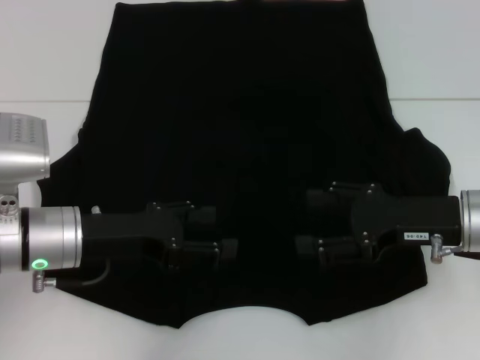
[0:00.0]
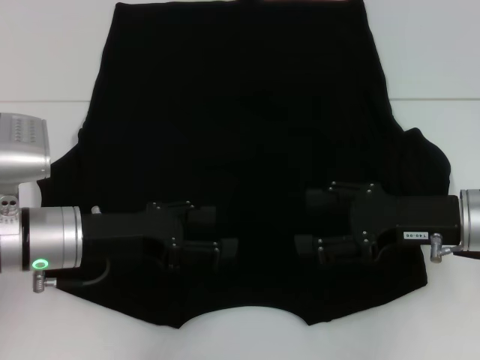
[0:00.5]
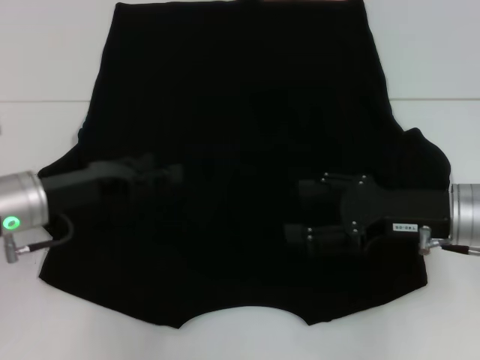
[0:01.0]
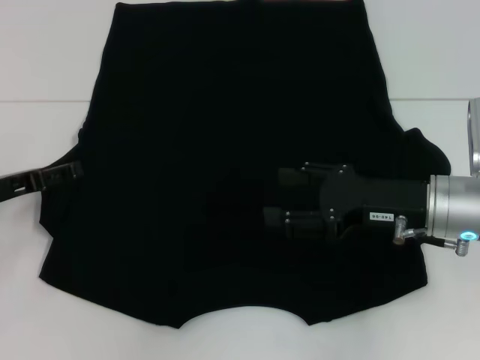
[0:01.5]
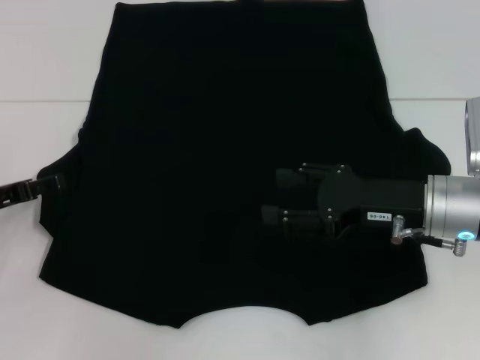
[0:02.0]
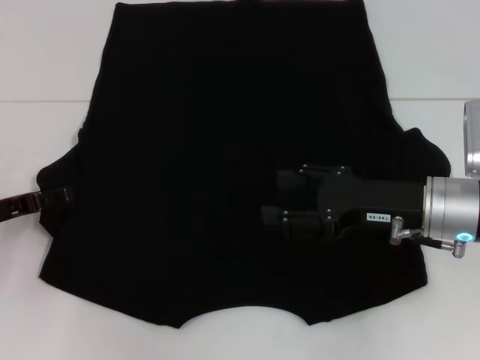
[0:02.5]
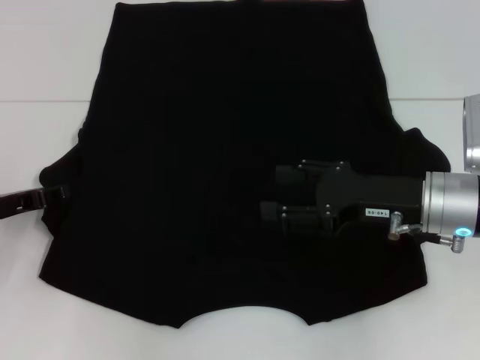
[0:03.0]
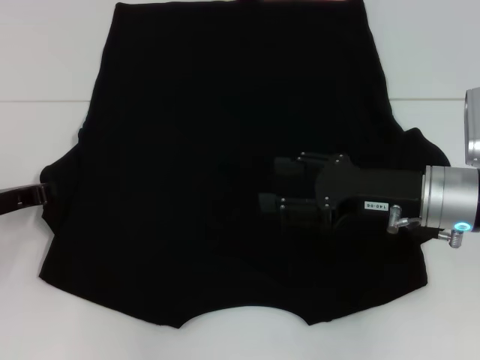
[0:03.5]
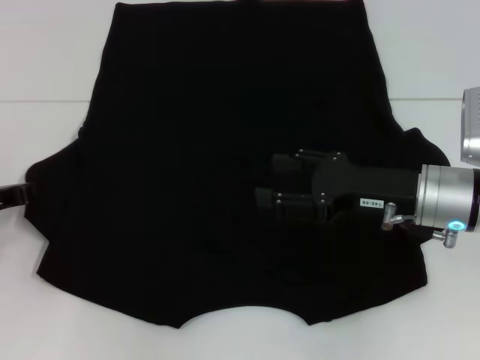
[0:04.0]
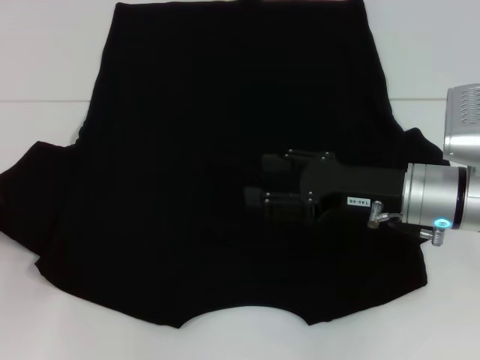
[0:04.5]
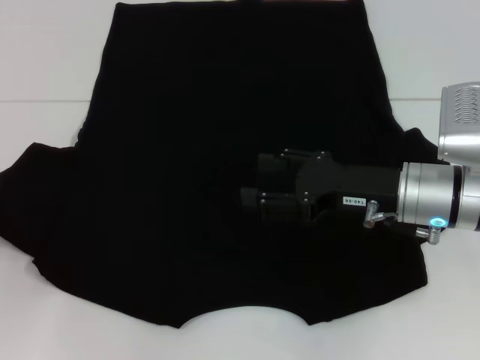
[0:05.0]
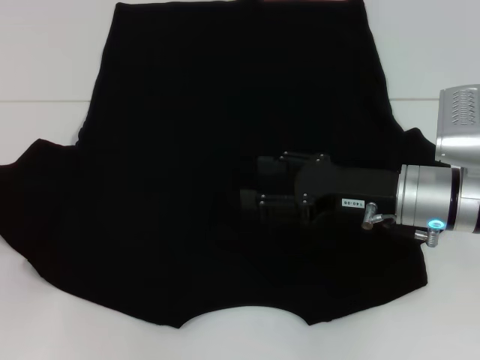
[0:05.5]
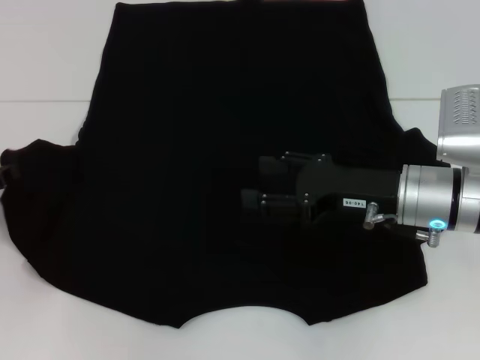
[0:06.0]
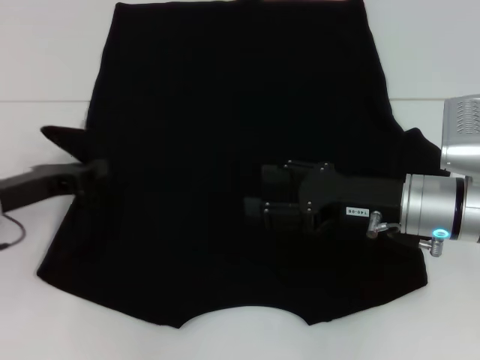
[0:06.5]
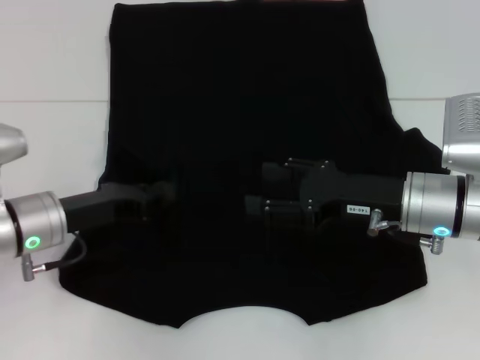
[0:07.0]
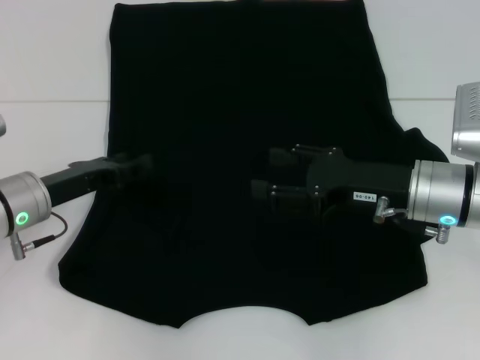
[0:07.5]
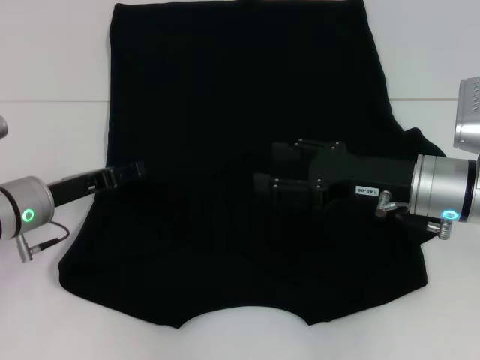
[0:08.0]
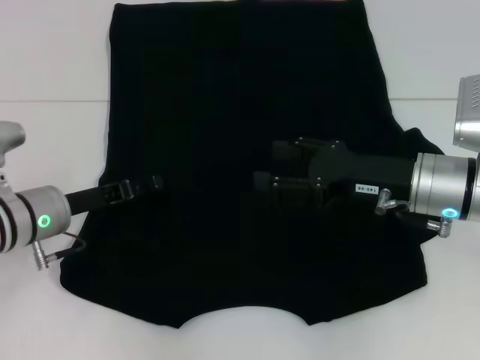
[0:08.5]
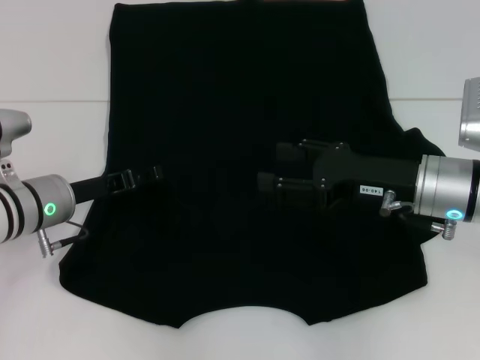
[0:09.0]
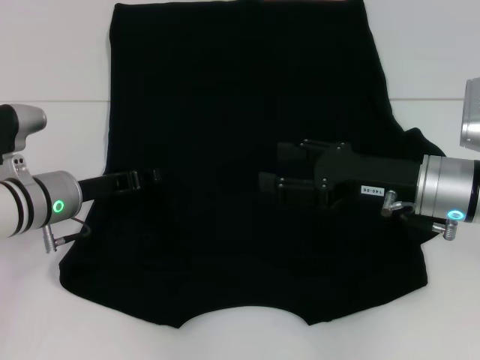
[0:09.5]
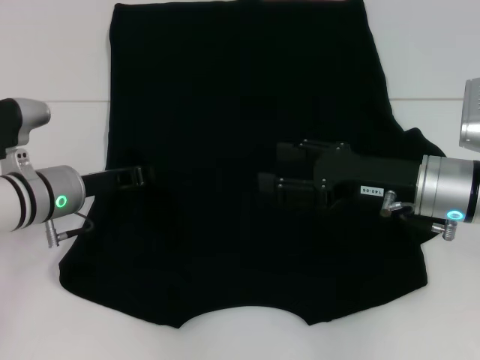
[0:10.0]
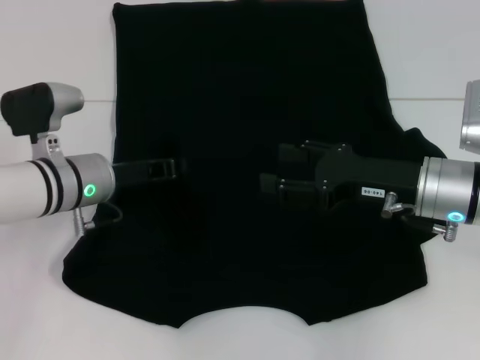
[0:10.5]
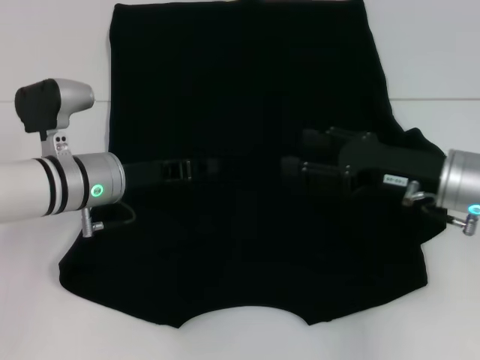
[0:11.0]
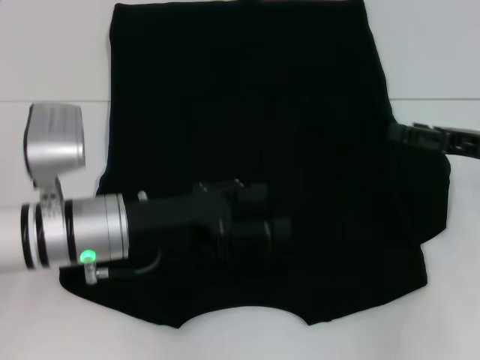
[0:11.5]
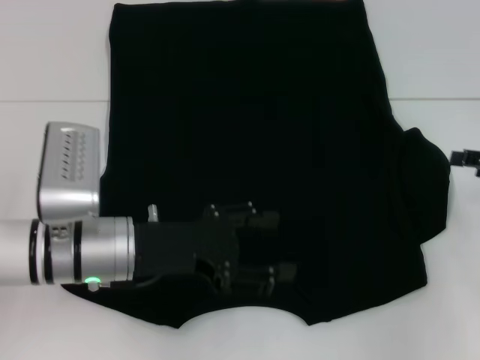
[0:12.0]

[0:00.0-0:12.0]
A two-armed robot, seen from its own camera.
Step, 0:00.0 to 0:09.0: Fold the bottom left sleeve with your left hand.
0:00.0 to 0:02.0: The left gripper goes some 10 cm to the left.
0:02.0 to 0:04.0: The left gripper closes its fingers.
0:04.0 to 0:06.0: The grippers move only a little.
0:06.0 to 0:08.0: The left gripper heads to the right, covering roughly 10 cm, and opens up.
0:08.0 to 0:10.0: The left gripper closes up.
0:10.0 to 0:12.0: The right gripper moves to the right, some 15 cm. Meanwhile the left gripper moves backward and to the right, some 10 cm, and opens.

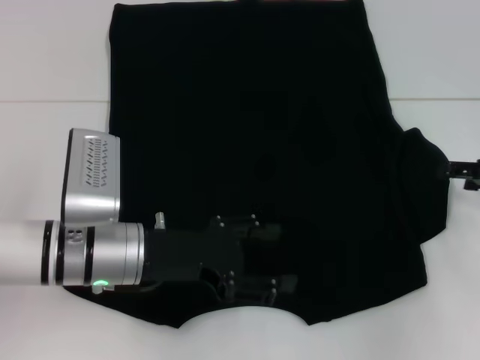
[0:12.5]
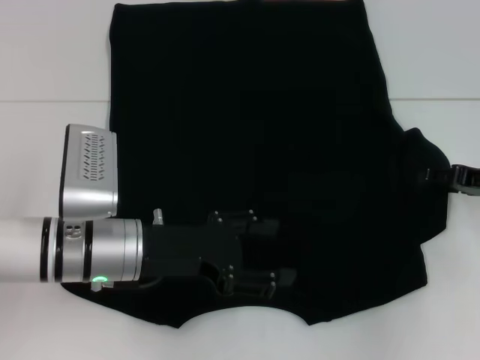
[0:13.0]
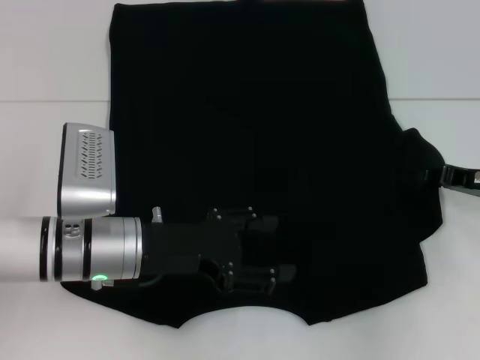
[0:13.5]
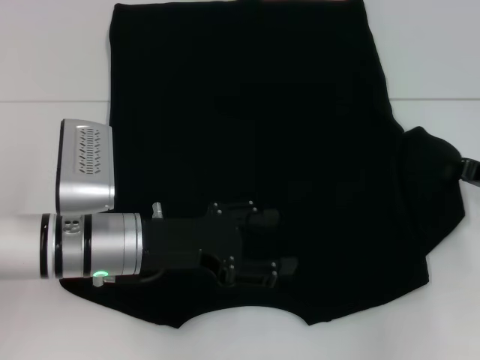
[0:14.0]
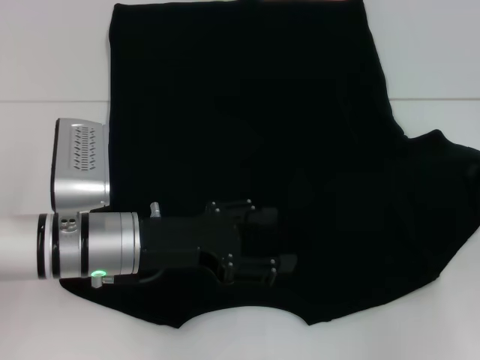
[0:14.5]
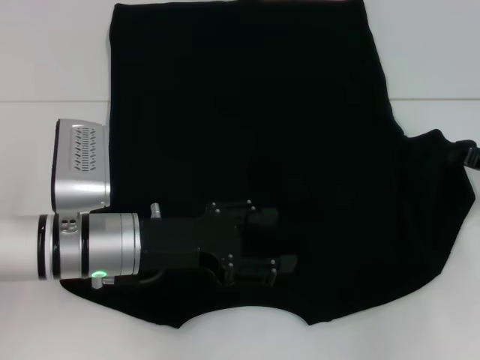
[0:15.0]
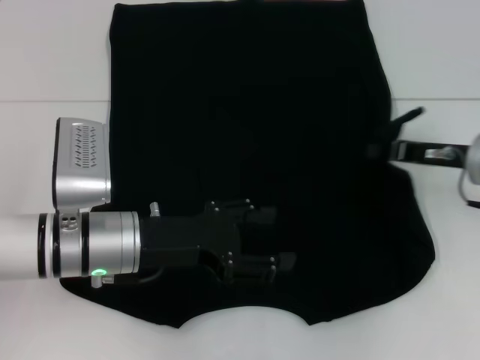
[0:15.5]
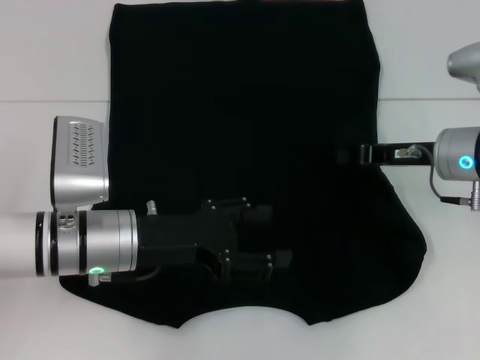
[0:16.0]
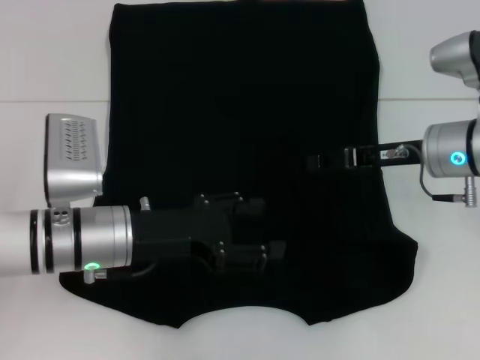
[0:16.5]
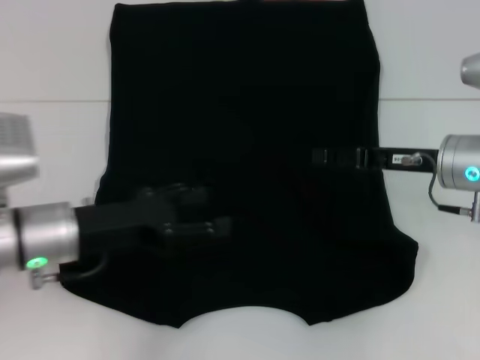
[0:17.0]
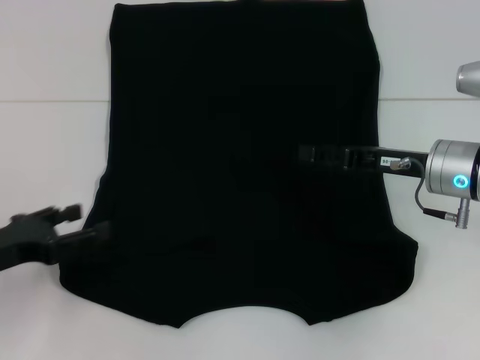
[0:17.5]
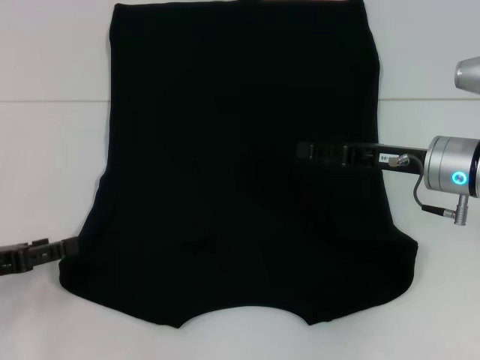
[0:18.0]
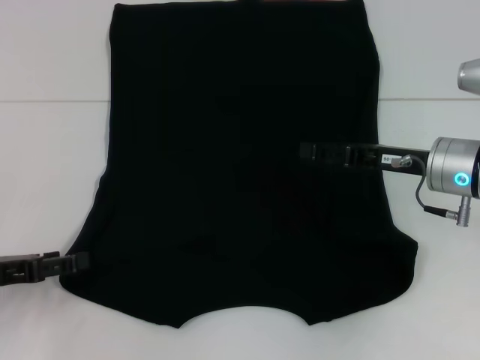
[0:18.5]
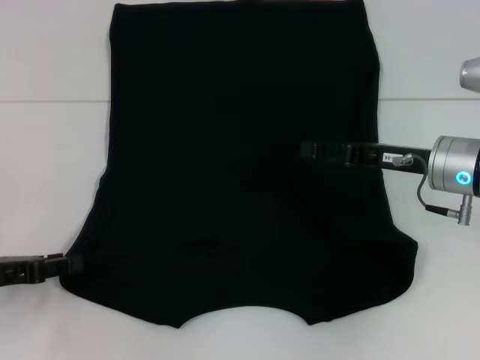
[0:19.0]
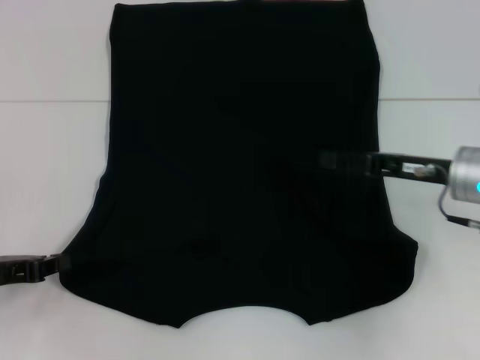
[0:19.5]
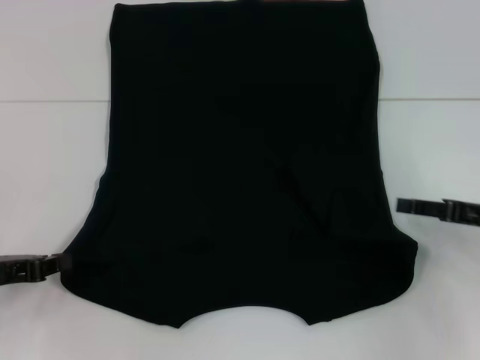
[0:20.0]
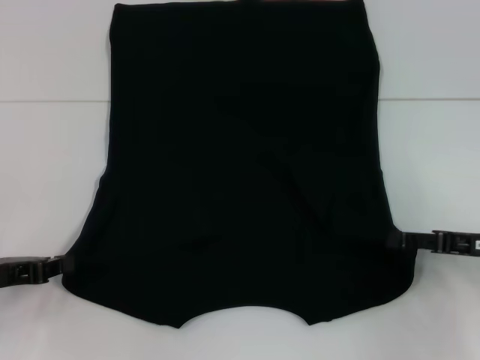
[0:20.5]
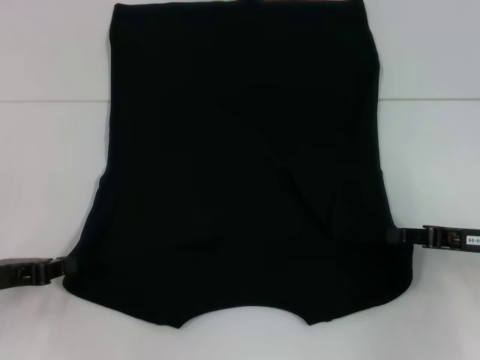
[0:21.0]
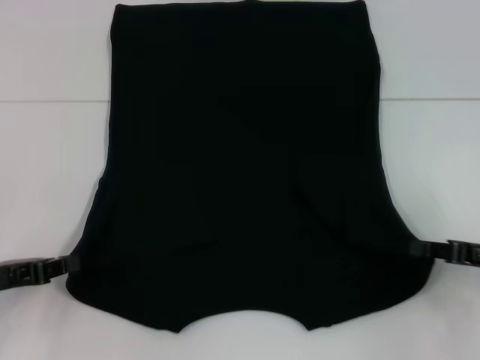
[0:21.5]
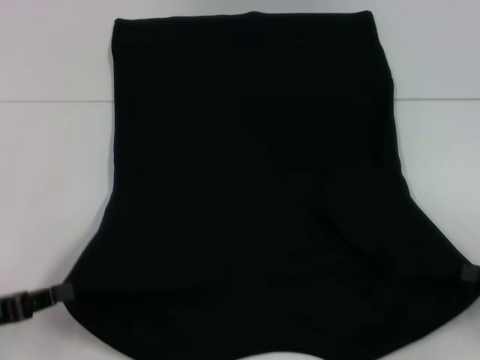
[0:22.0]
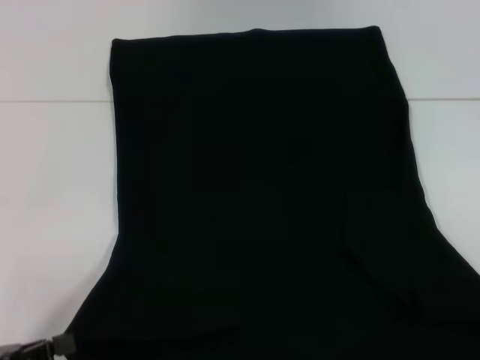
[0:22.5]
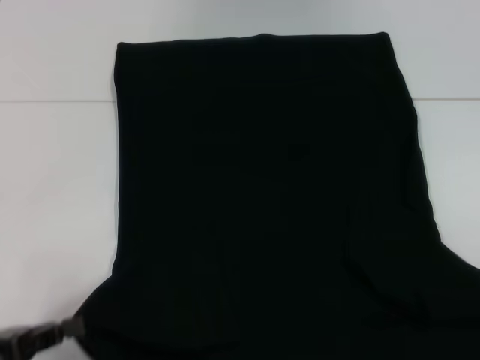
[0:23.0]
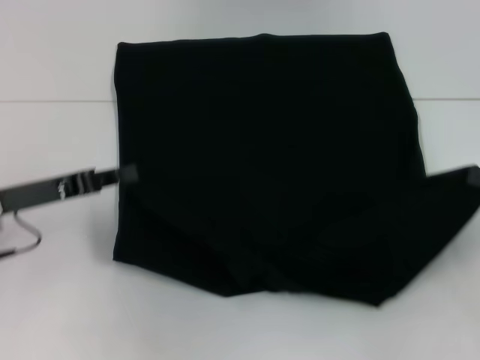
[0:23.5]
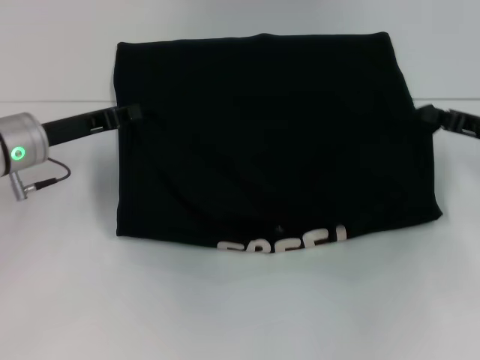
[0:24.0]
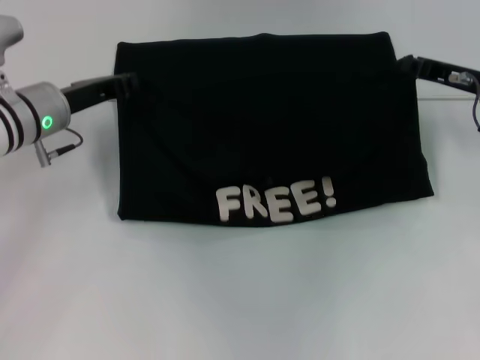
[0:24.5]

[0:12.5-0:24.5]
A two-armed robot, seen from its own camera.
Step, 0:12.5 to 0:17.0: Fold the bottom right sleeve with your right hand.
Step, 0:17.5 to 0:20.0: Grab the bottom left corner with your left hand.
Step, 0:20.5 to 0:21.5: Grab the bottom right corner with your right hand.
0:12.5 to 0:14.5: The right gripper closes up.
0:14.5 to 0:16.5: The right gripper moves to the left, some 15 cm, and opens.
0:16.5 to 0:18.5: The left gripper goes some 15 cm to the left.
0:18.5 to 0:20.5: The right gripper goes some 10 cm to the right and backward.
0:20.5 to 0:22.5: The left gripper travels backward by some 10 cm, while the right gripper shifts some 15 cm backward and to the right, and closes.
0:22.5 to 0:24.5: The left gripper shifts approximately 25 cm forward, while the right gripper moves forward and to the left, about 30 cm.

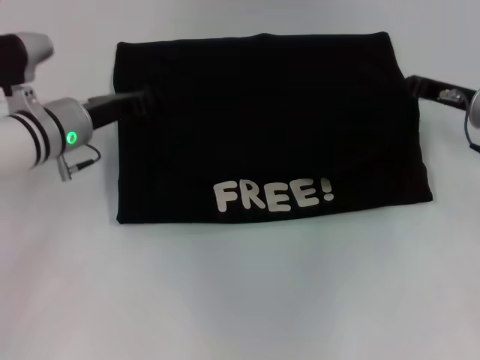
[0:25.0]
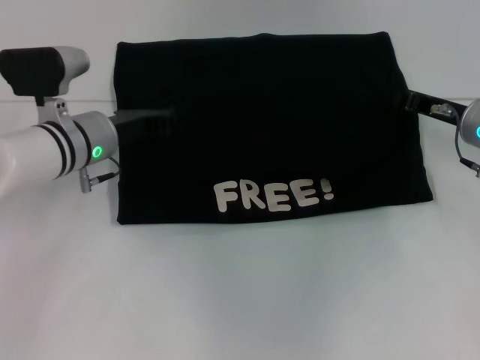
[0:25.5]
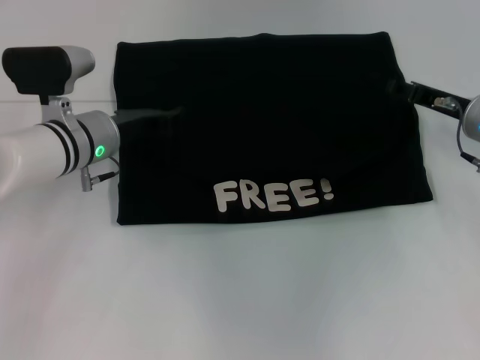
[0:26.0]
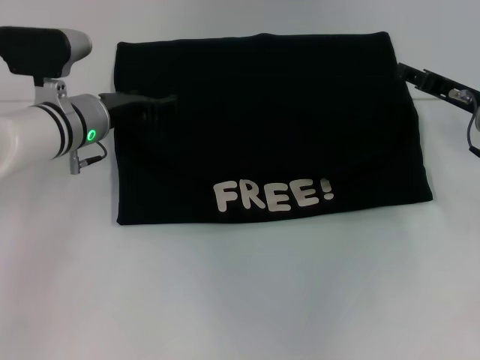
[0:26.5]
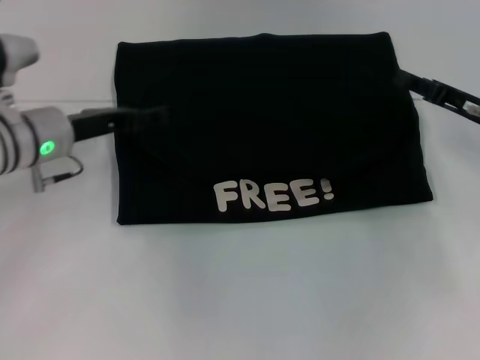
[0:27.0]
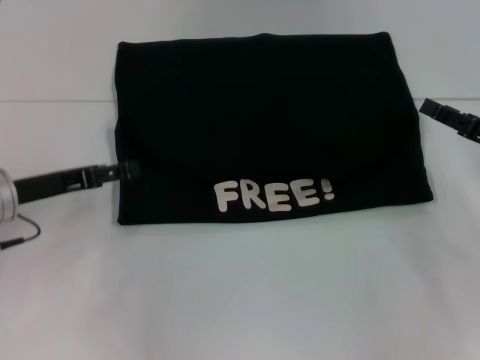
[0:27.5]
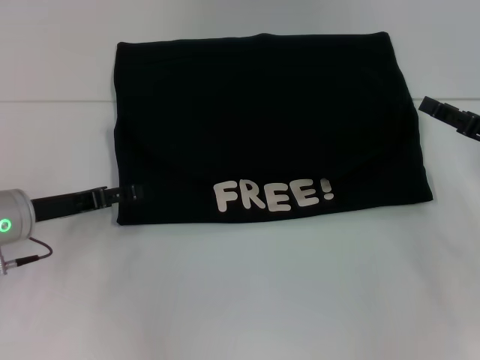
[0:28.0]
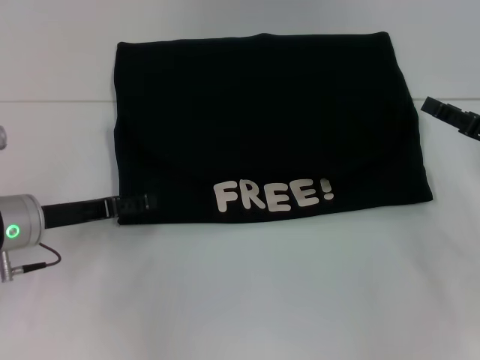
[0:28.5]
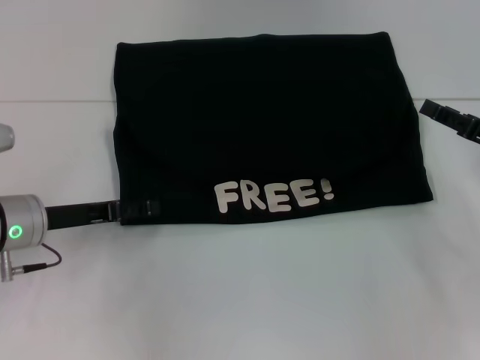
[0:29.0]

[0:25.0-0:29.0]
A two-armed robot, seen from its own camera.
0:25.0 to 0:27.0: The left gripper opens its fingers. The right gripper opens its fingers.
0:27.0 to 0:29.0: The right gripper ends up approximately 5 cm from where it was, while the left gripper shifts some 5 cm backward.
